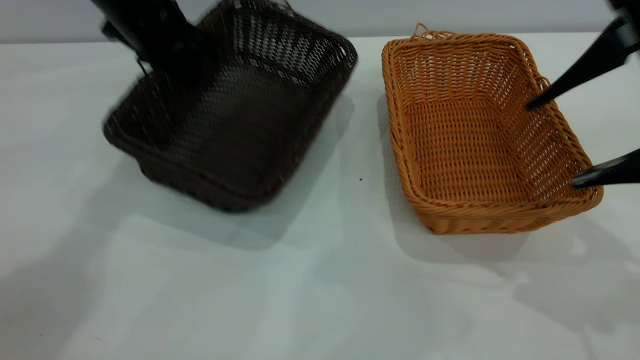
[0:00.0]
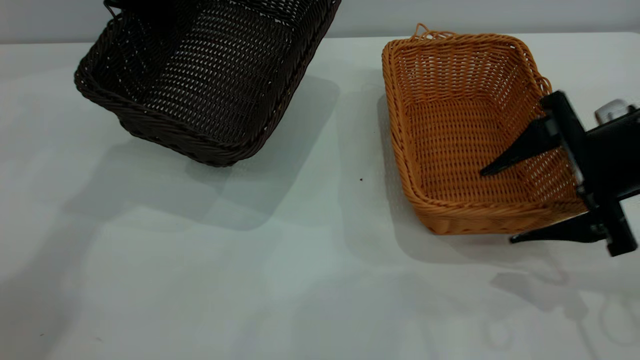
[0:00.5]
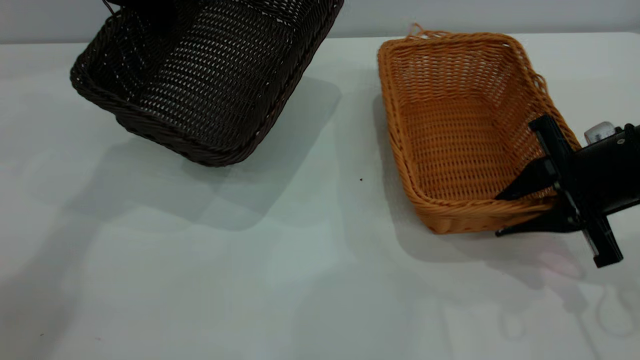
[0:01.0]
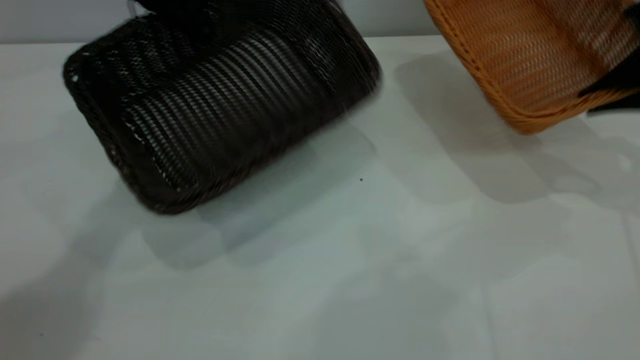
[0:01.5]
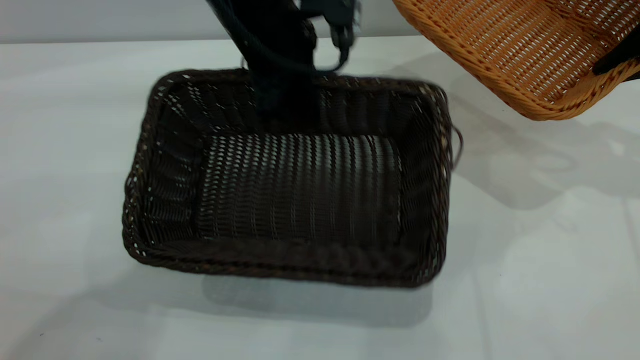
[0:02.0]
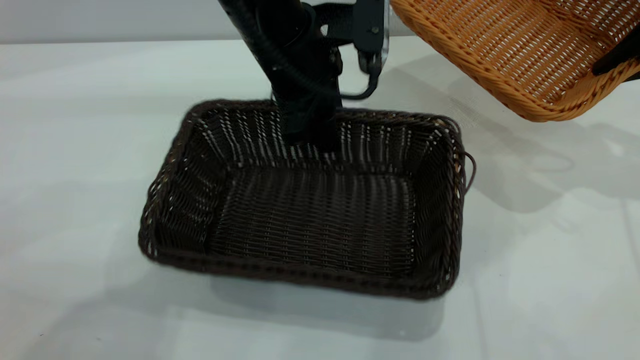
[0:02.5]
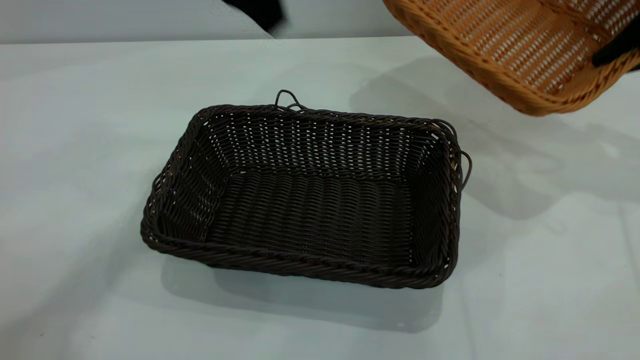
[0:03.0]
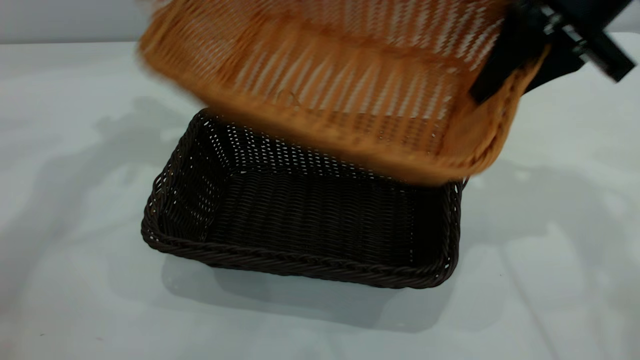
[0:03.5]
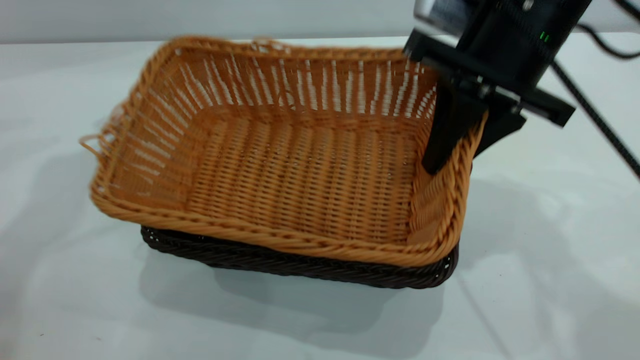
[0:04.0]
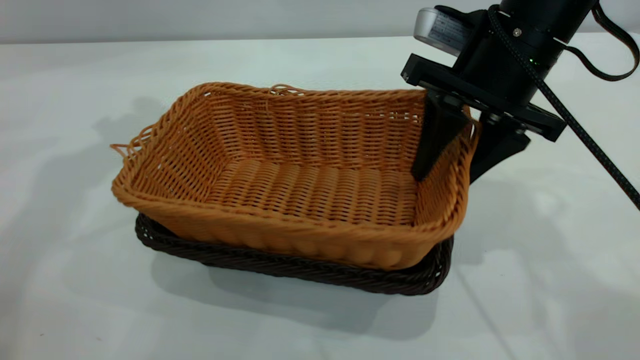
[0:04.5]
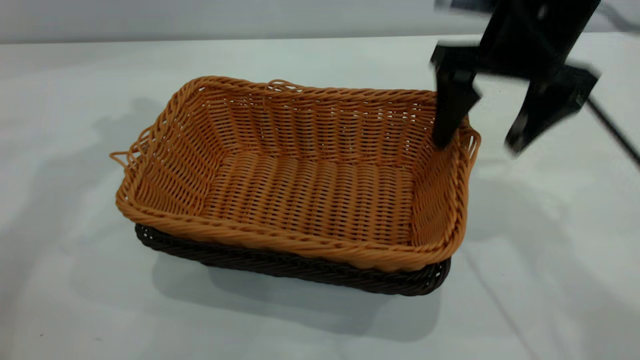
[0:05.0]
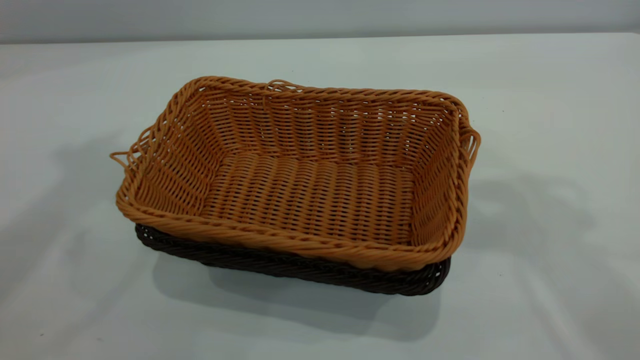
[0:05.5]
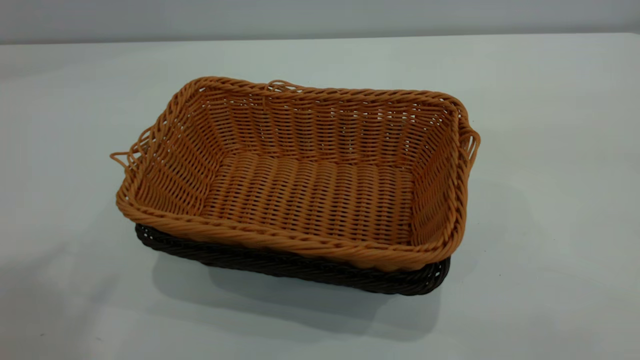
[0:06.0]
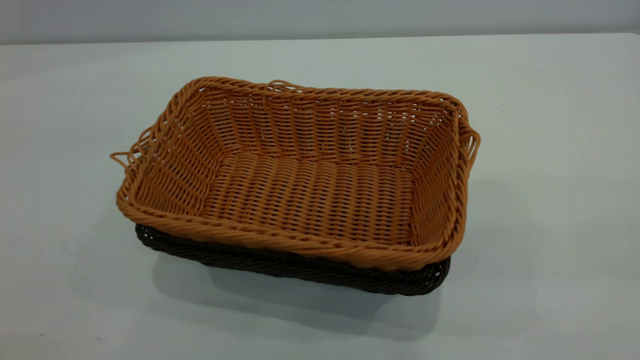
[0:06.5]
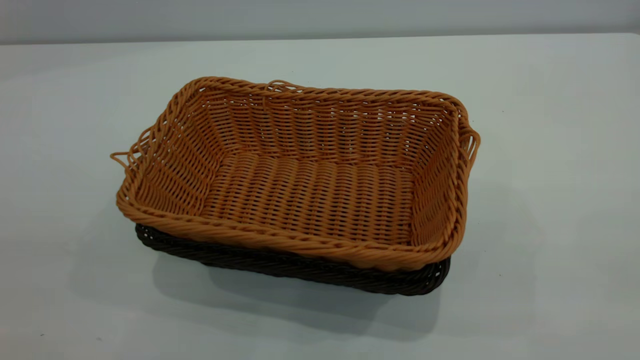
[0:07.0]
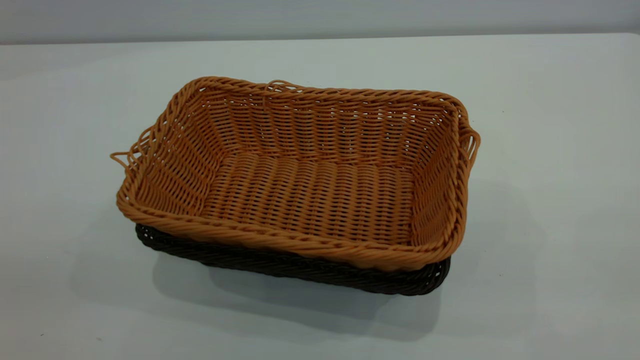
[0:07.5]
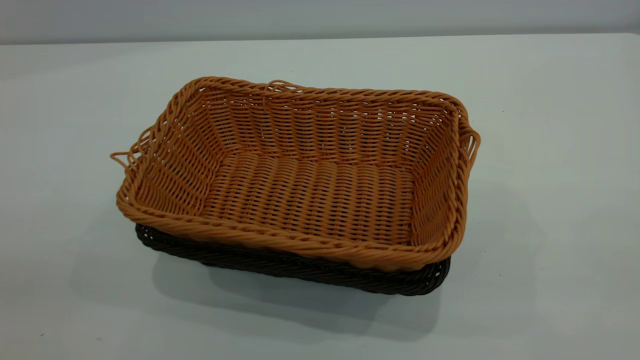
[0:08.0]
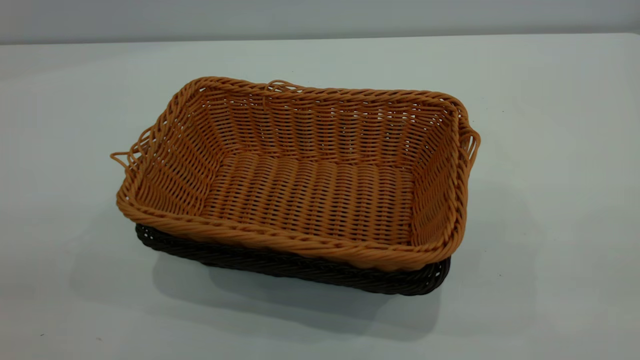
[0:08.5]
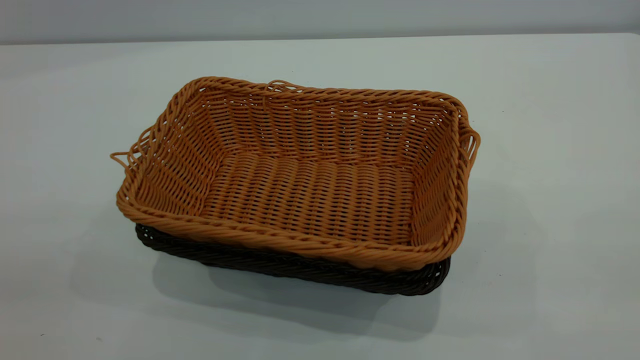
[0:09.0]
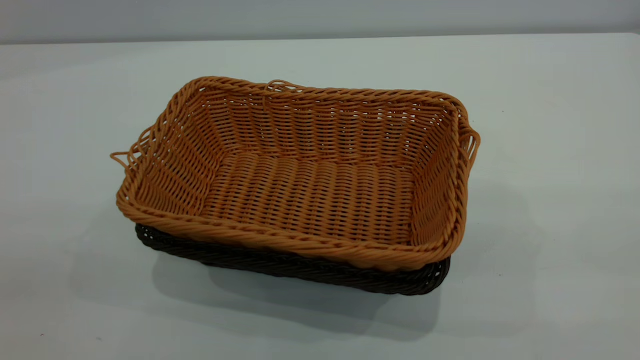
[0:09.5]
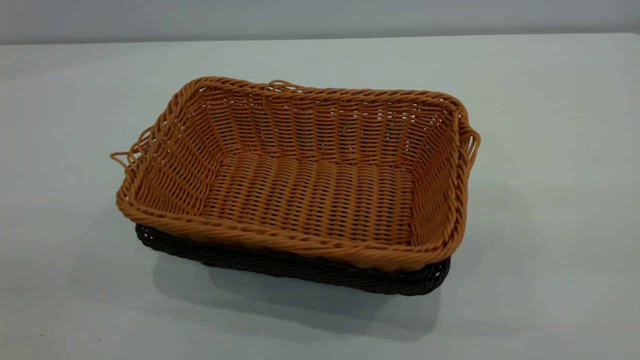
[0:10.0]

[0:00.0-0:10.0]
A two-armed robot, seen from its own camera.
Task of the whole recording: the left gripper grasp the black basket and place it in the center of the table, the right gripper grasp the brown basket and place it inside the black one.
Step, 0:01.5 to 0:02.5: Move the dark basket to the center of view.
Step, 0:03.0 to 0:05.0: Place the light basket on the dark basket.
0:00.0 to 0:02.0: The right gripper is displaced forward and to the right by some 15 cm, and closes up; the left gripper is displaced to the right and backward by about 15 cm.
0:02.0 to 0:04.0: The right gripper travels to the left by some 20 cm. The left gripper goes roughly 25 cm to the left and upward, and opens.
0:04.0 to 0:06.0: The left gripper moves backward and upward, roughly 35 cm; the right gripper is displaced backward, upward and to the right by roughly 40 cm, and opens its fingers.

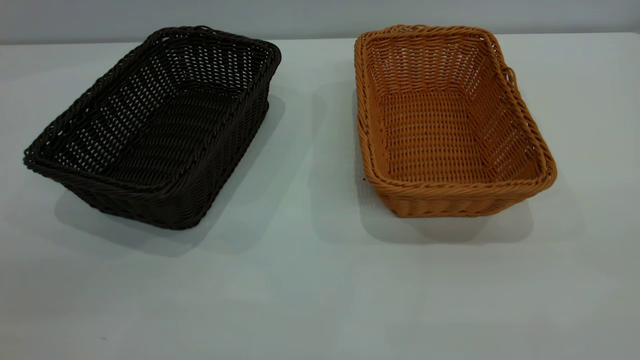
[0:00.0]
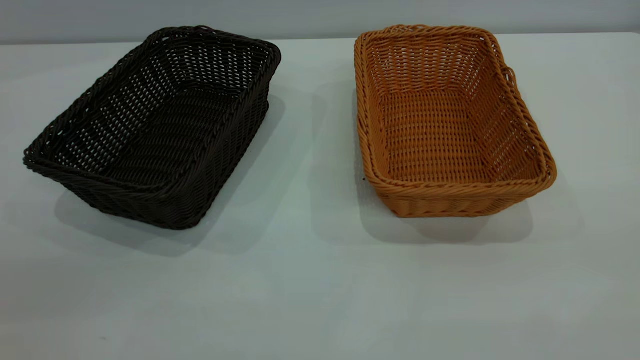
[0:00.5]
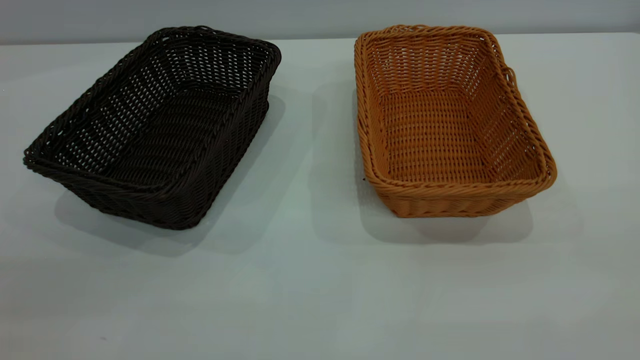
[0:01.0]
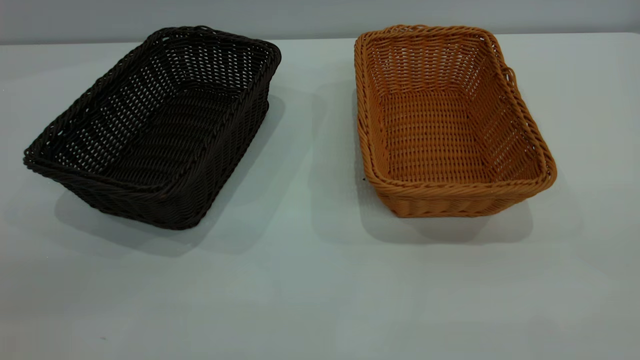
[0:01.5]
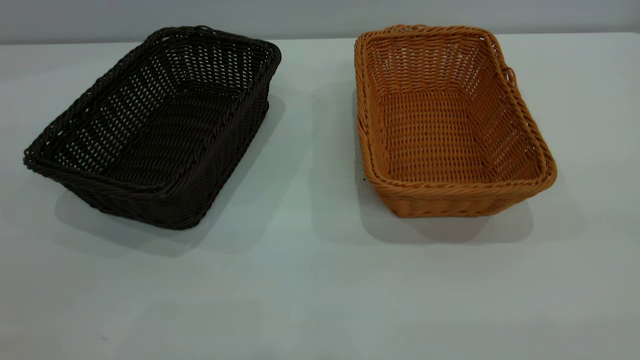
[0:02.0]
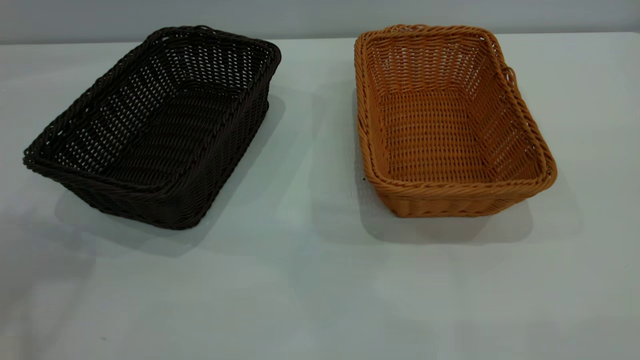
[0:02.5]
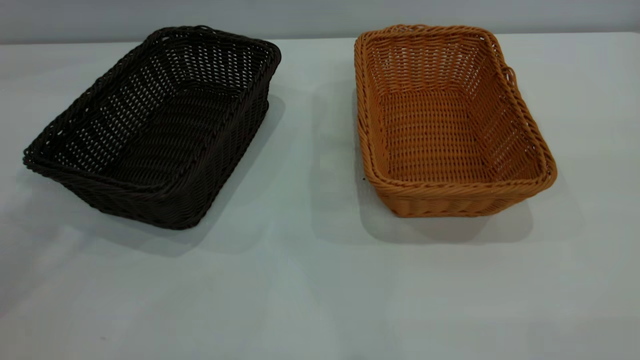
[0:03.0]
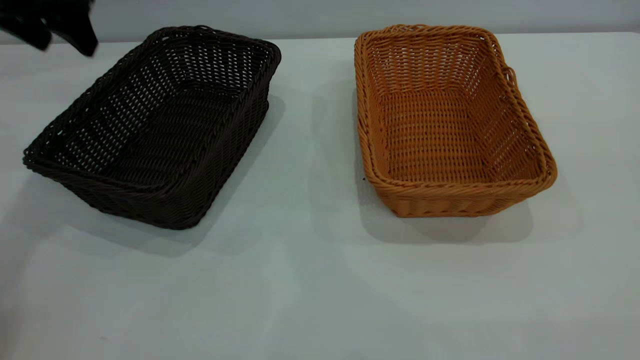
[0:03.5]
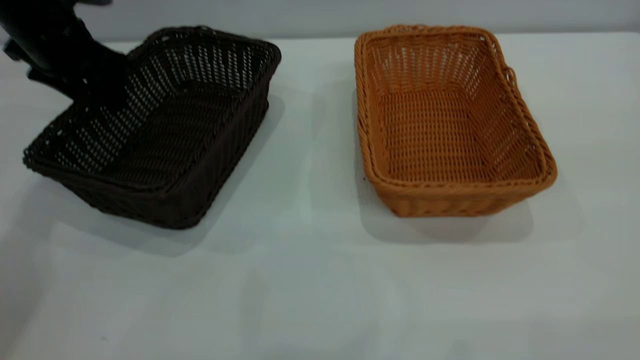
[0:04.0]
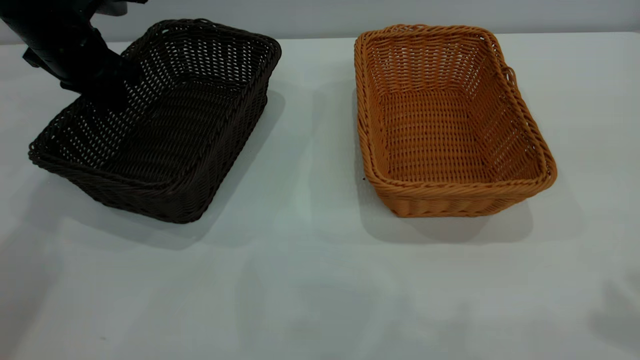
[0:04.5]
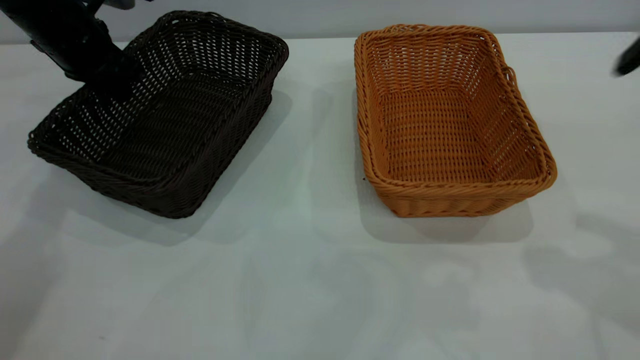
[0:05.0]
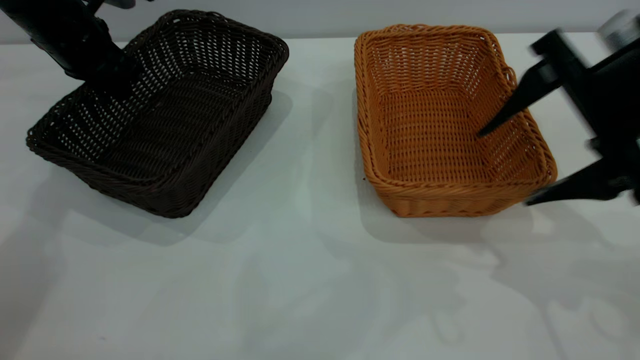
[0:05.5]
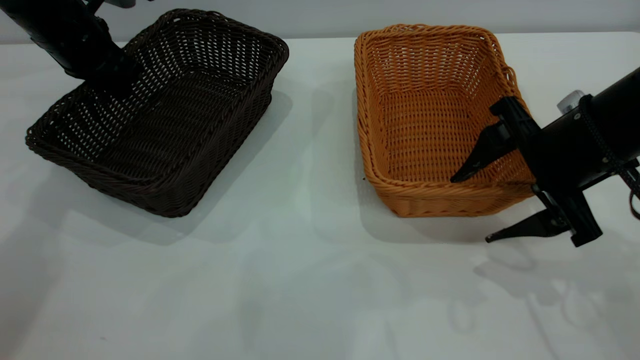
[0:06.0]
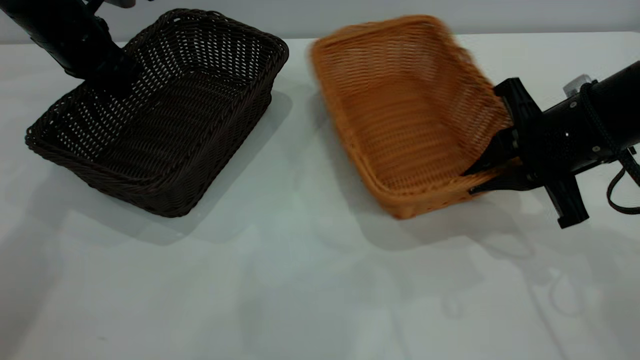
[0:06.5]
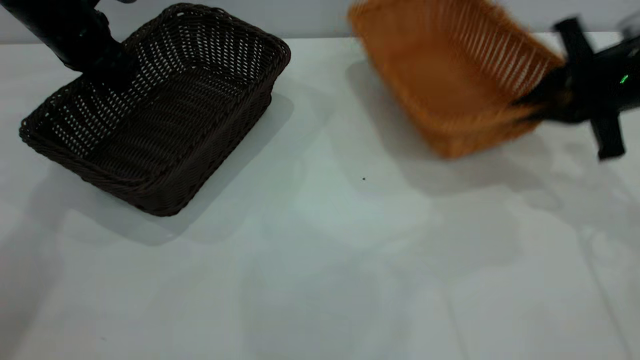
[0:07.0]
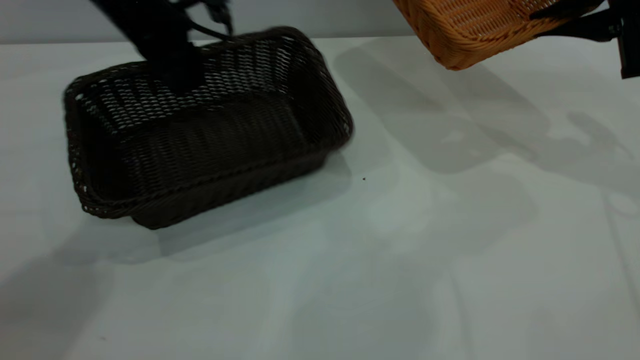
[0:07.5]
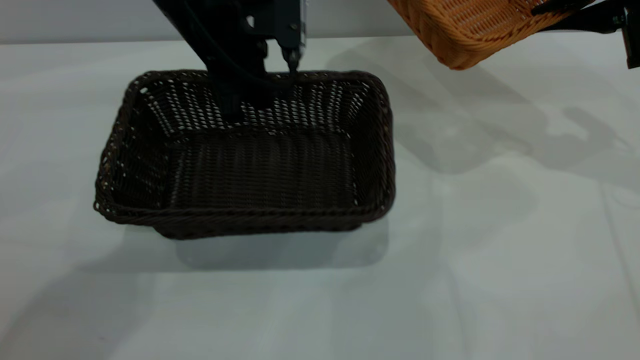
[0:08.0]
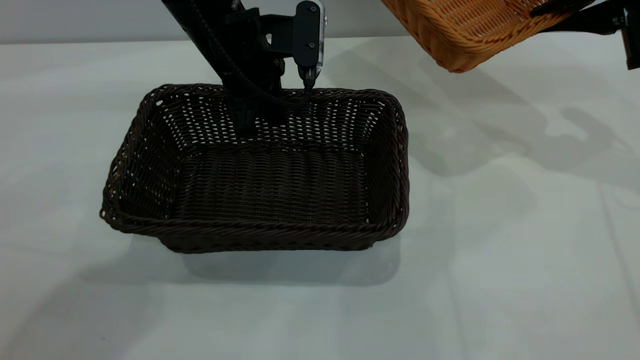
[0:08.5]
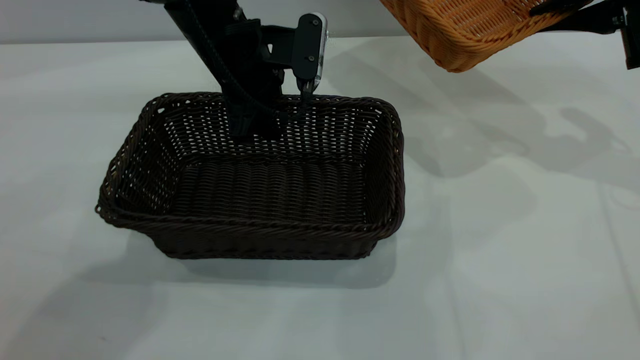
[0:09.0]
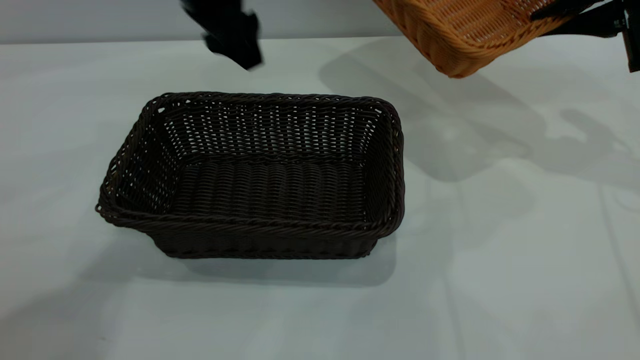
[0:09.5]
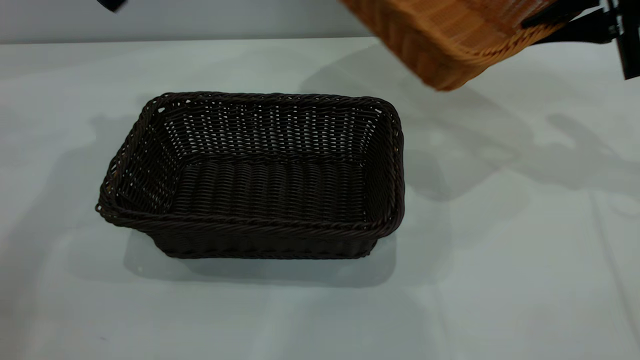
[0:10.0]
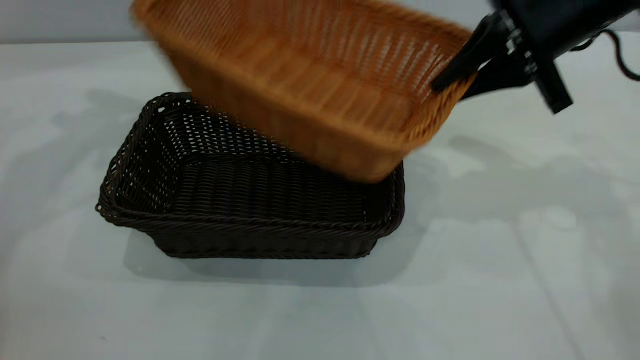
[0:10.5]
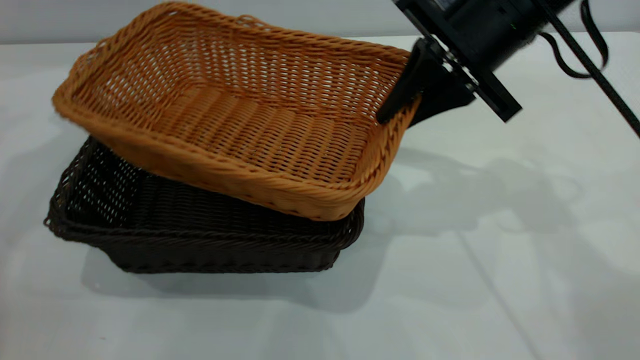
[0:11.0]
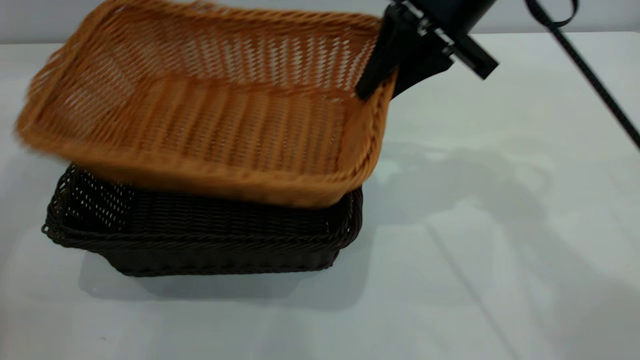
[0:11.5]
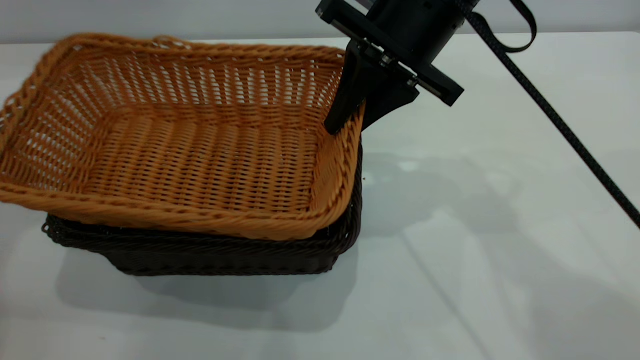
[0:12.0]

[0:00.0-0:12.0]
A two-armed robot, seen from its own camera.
Task of the whole recording: the left gripper grasp the black basket and place it in the center of the table, the right gripper grasp the brown basket and place it inside the black one.
Step, 0:00.0 to 0:06.5: Pick up the light basket with the right gripper.
Step, 0:07.0 to 0:09.0: Move the dark basket to the center of view.
0:02.0 to 0:04.0: The left gripper shifts some 50 cm forward and downward.
0:04.0 to 0:06.0: The left gripper closes up; the right gripper shifts roughly 35 cm downward and forward.
0:06.0 to 0:08.0: The right gripper heads forward, to the right and upward, covering about 20 cm, and closes its fingers. Meanwhile the left gripper travels to the right by roughly 20 cm.
0:08.0 to 0:10.0: The left gripper moves to the left and upward, about 20 cm, and opens.
0:10.0 to 0:12.0: The right gripper is displaced to the left by approximately 20 cm.
